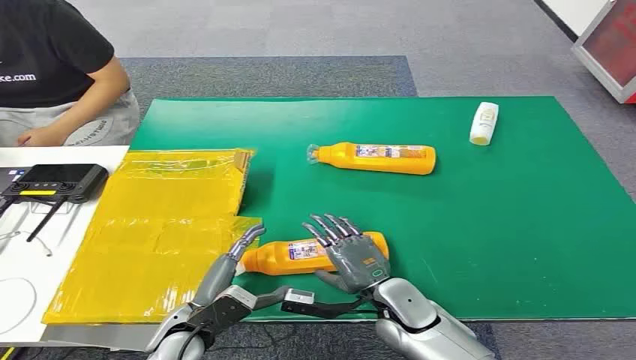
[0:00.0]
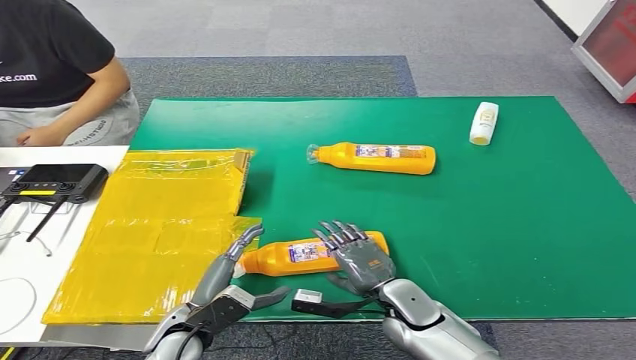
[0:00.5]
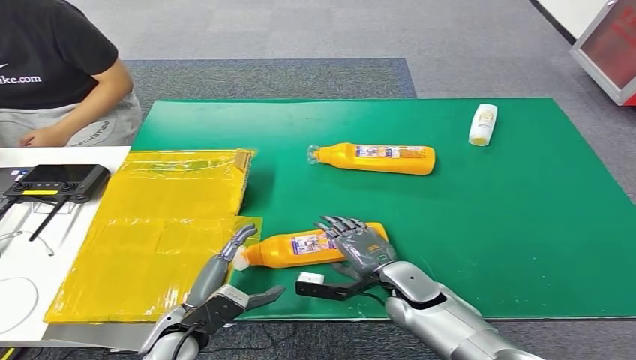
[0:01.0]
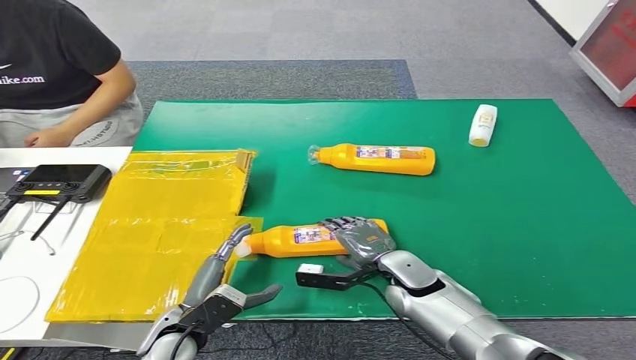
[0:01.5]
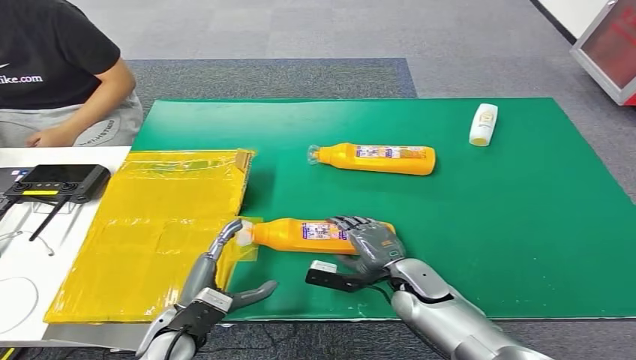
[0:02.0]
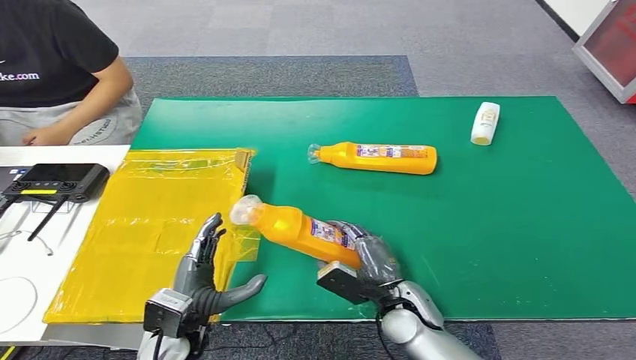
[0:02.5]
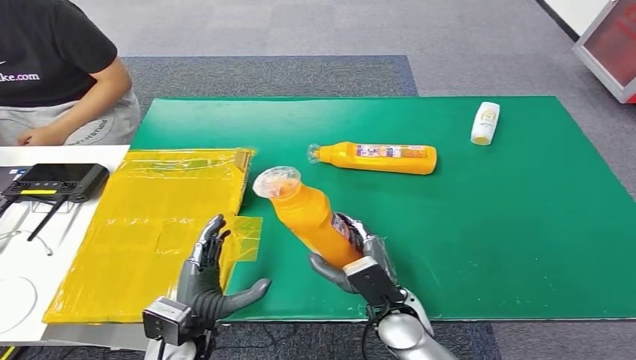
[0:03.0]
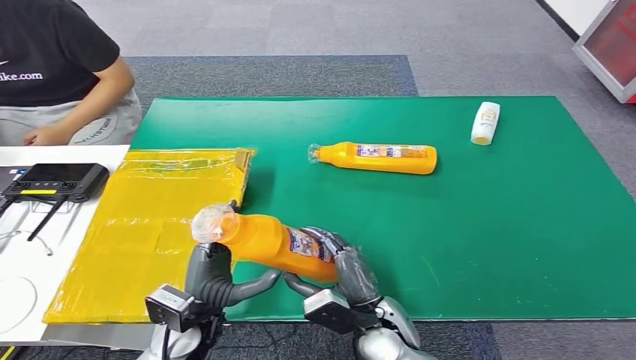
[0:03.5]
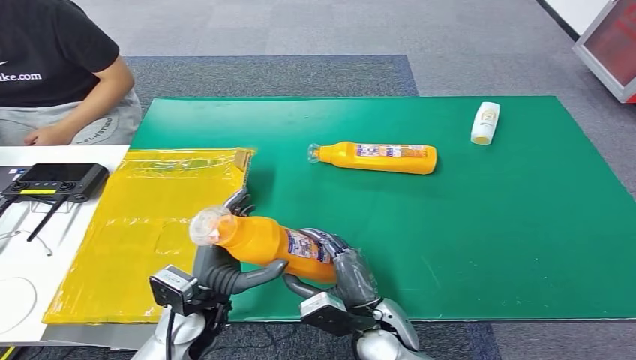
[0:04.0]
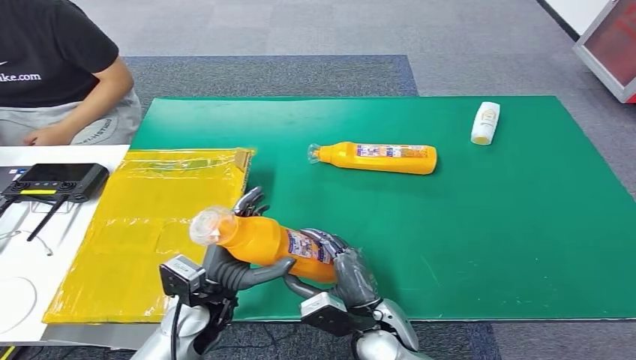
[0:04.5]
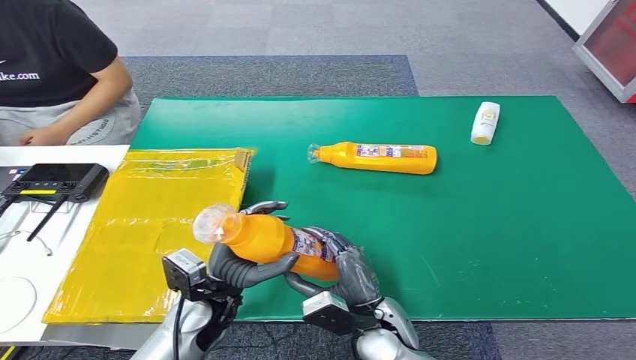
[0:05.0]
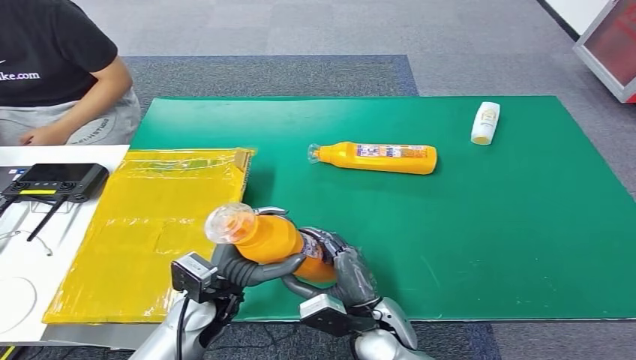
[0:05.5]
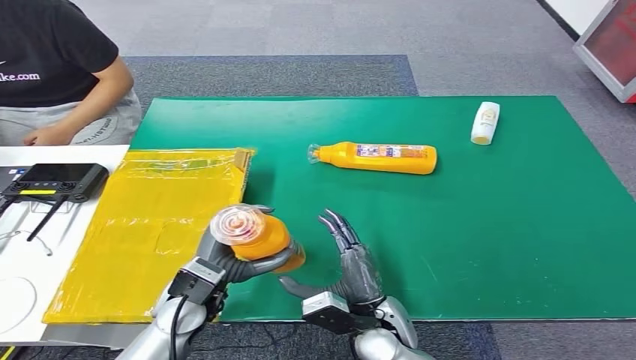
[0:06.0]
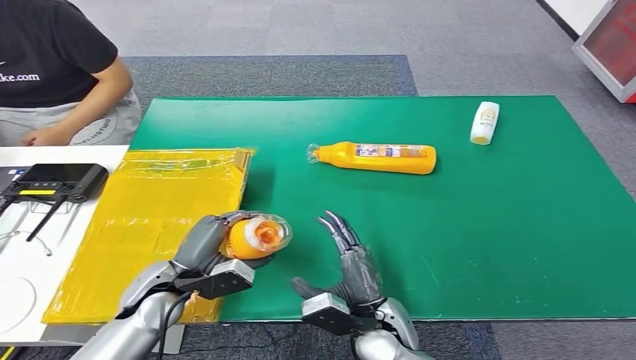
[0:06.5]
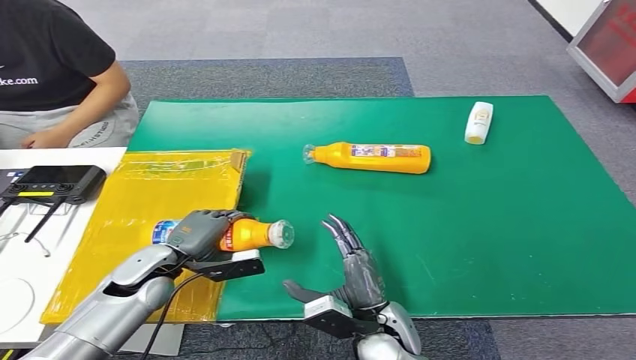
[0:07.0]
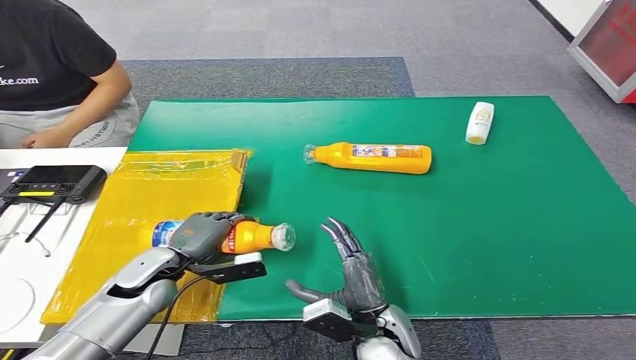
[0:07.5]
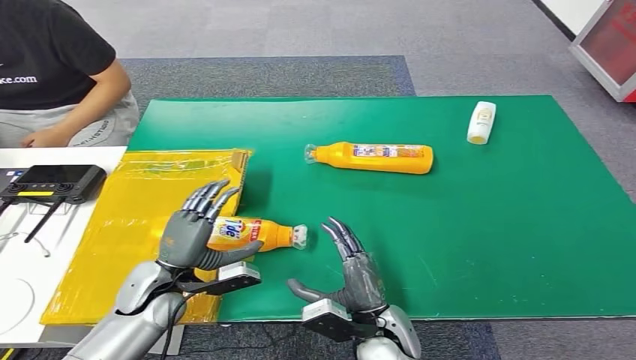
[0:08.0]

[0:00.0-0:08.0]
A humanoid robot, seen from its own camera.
Step, 0:00.0 to 0:02.5: Pick up the bottle from the table.
Step, 0:03.0 to 0:08.0: Turn the bottle to the front side.
0:02.0 to 0:04.0: The right hand heads backward and to the left, covering about 10 cm. The left hand moves roughly 5 cm.
0:04.0 to 0:06.0: The hands stay close to where they were, moving slightly.
0:06.0 to 0:08.0: The left hand travels to the left by about 5 cm.

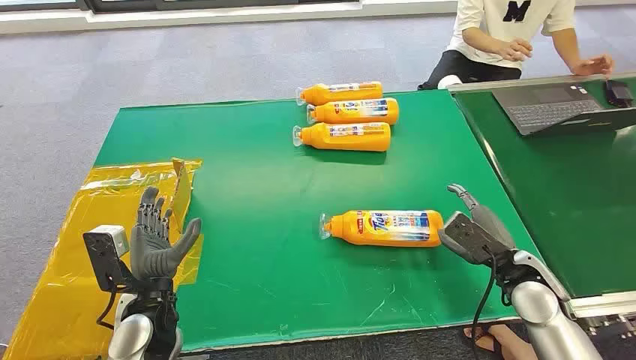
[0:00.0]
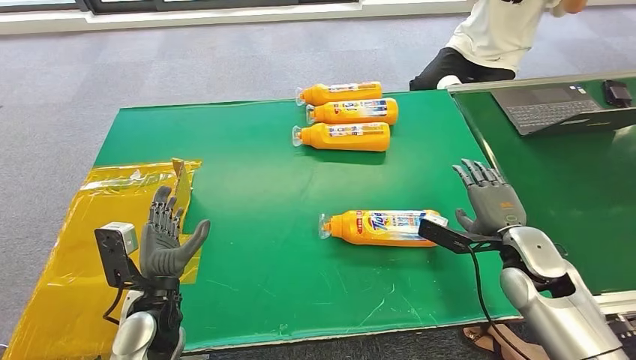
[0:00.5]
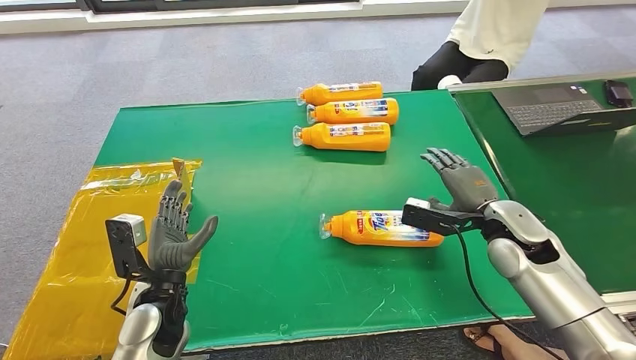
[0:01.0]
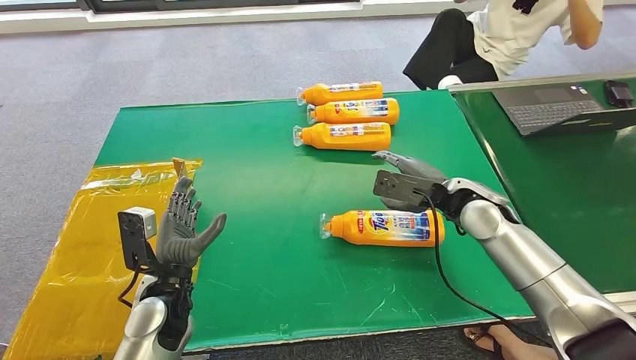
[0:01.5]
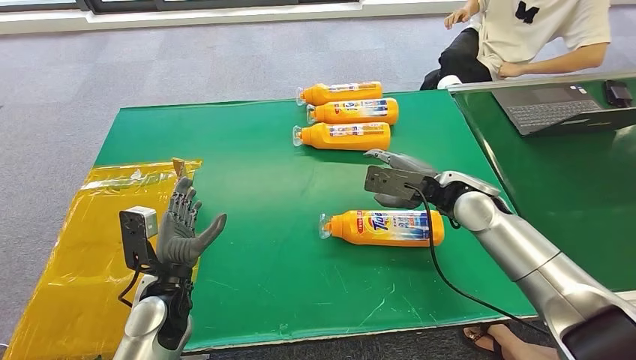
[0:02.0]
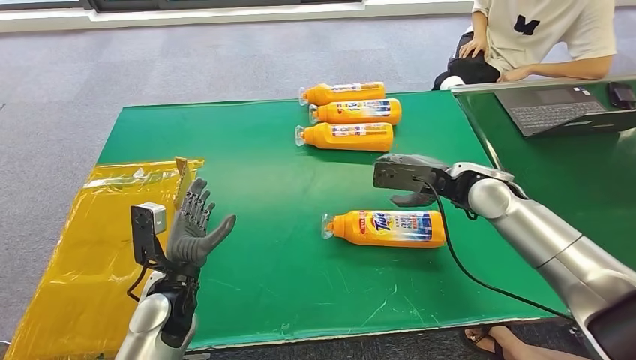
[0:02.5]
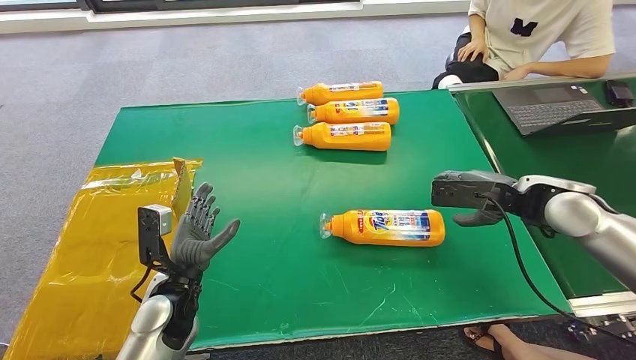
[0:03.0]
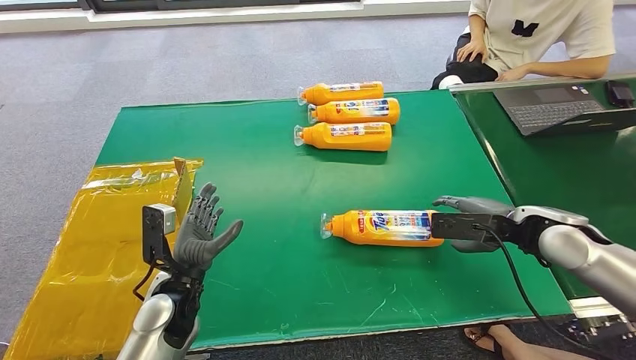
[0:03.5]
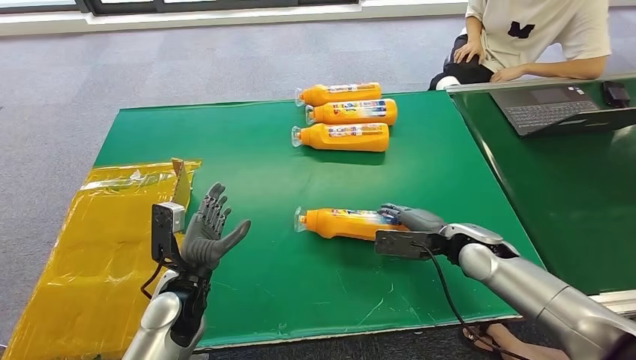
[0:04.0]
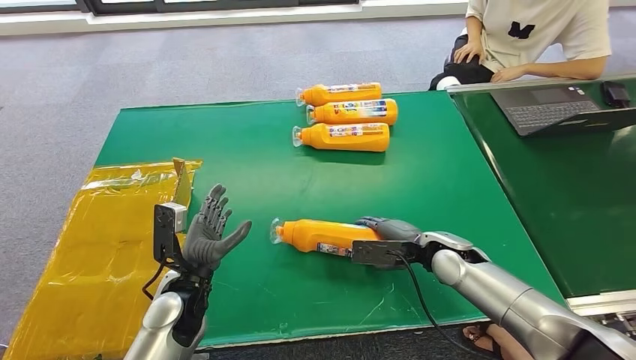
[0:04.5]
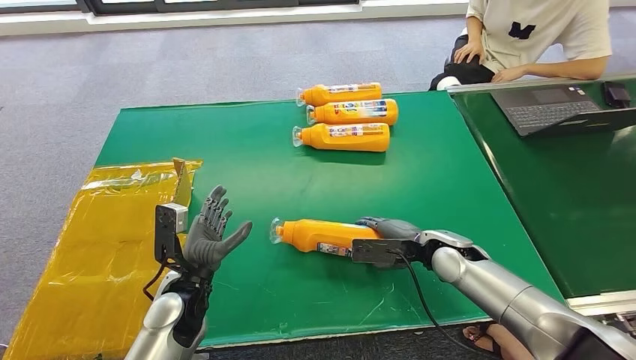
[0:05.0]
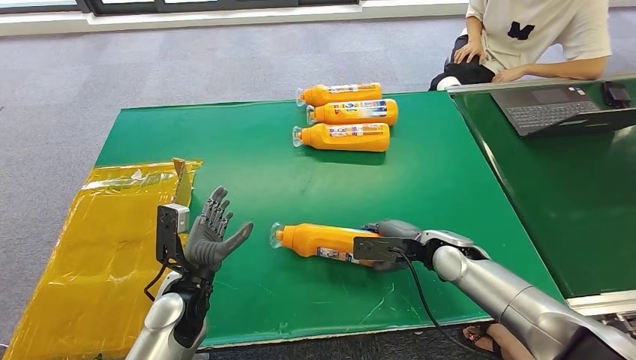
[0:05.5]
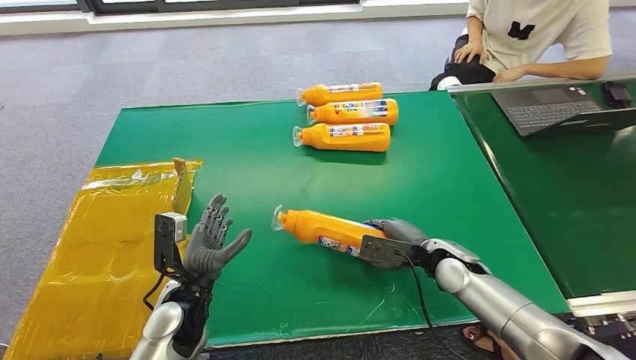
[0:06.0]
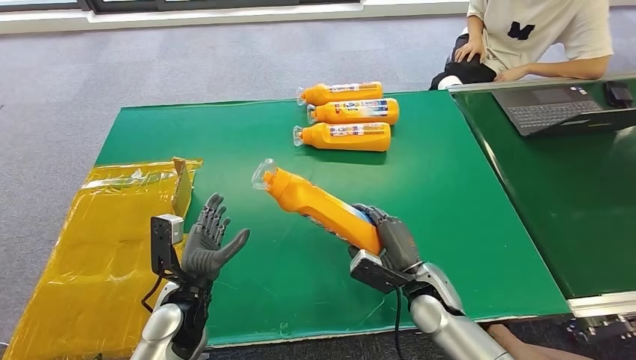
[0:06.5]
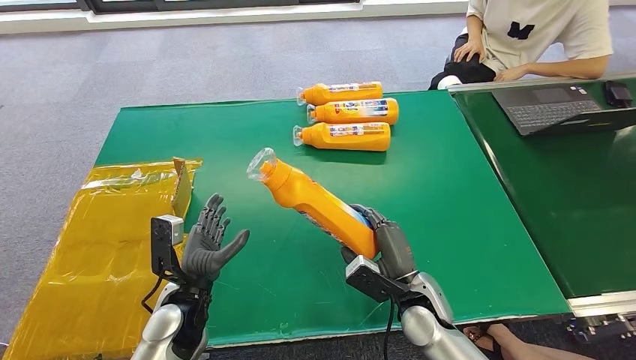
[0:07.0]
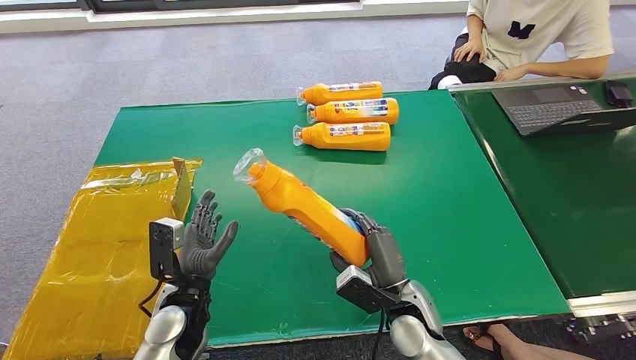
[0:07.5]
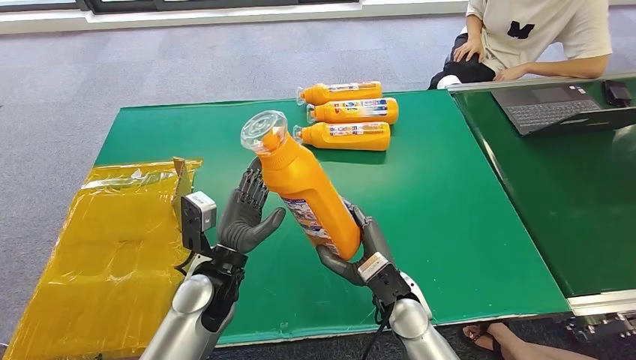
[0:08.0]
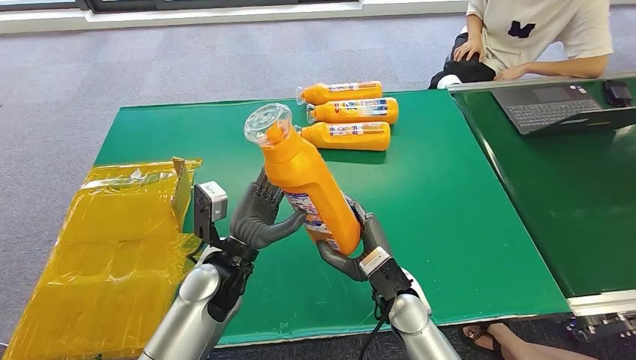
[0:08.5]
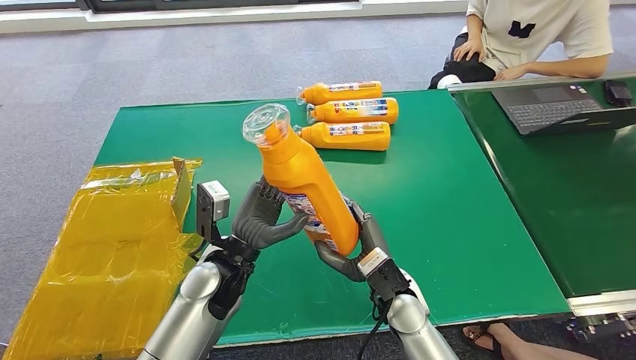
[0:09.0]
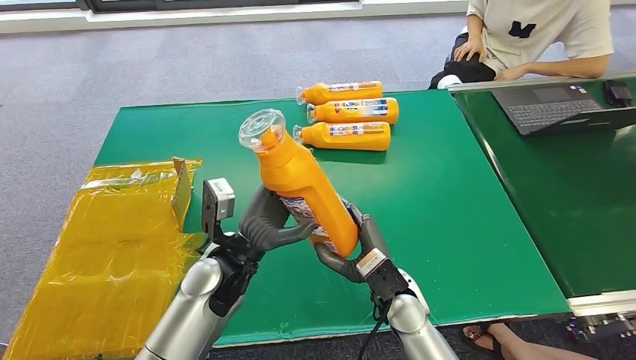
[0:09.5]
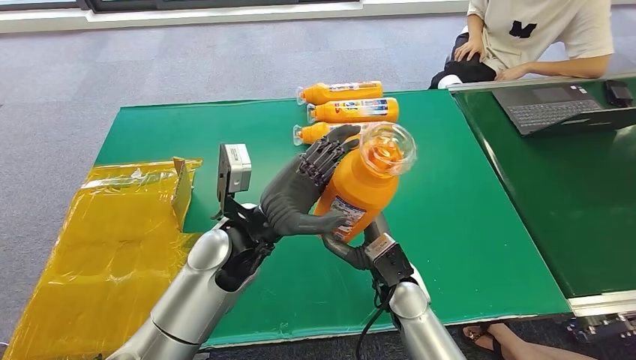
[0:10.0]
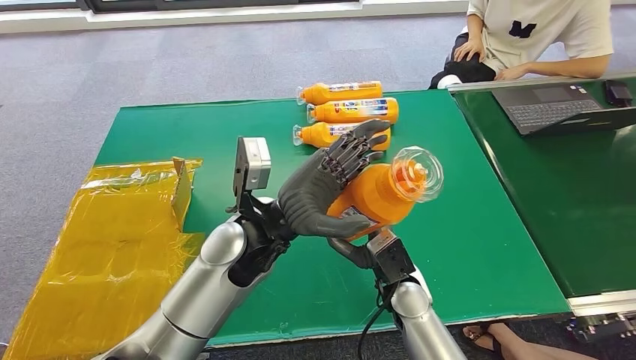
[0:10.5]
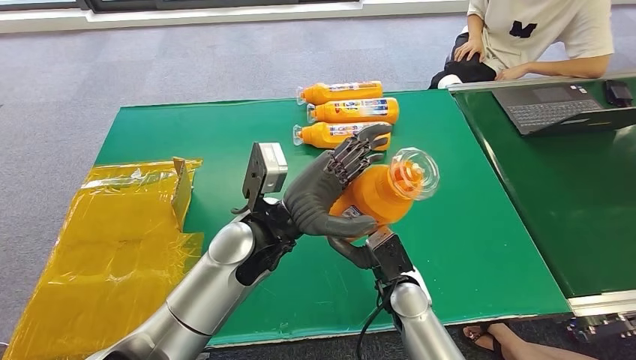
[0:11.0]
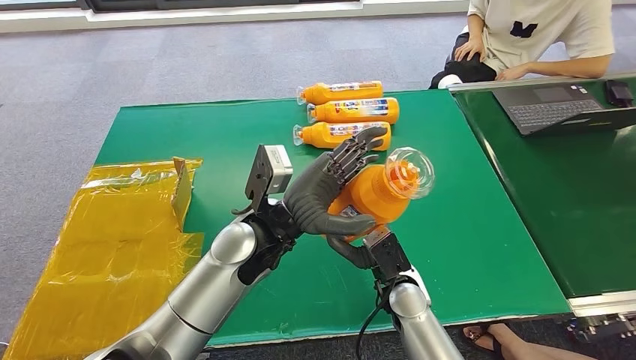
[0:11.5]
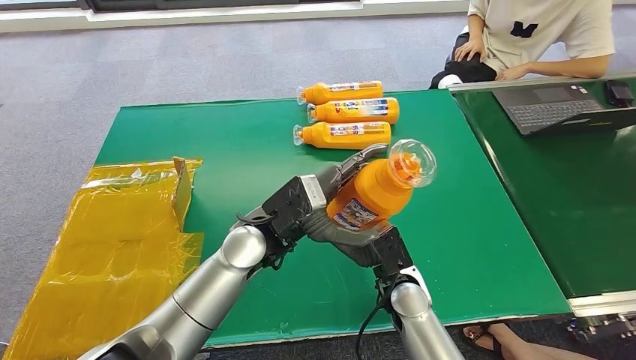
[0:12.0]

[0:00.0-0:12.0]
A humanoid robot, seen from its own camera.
Step, 0:00.0 to 0:06.5: Pick up the bottle from the table.
0:04.0 to 0:06.0: The right hand ends up roughly 5 cm from where it was.
0:06.0 to 0:08.0: The left hand is displaced to the right and upward by roughly 10 cm; the right hand heads to the left and backward, covering some 15 cm.
0:08.0 to 0:10.0: The left hand goes some 10 cm upward and to the right.
